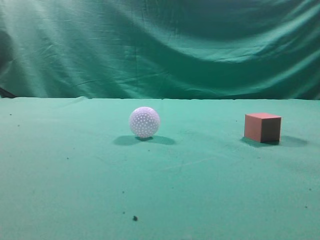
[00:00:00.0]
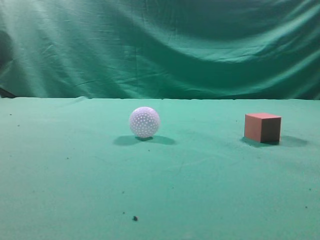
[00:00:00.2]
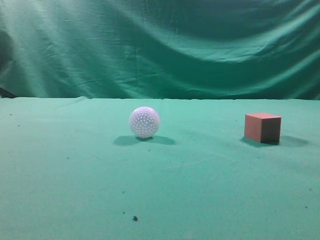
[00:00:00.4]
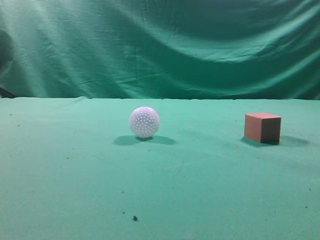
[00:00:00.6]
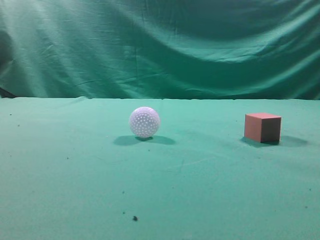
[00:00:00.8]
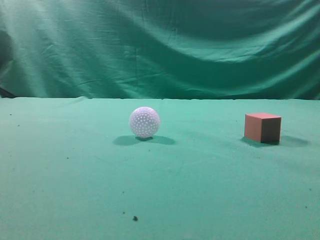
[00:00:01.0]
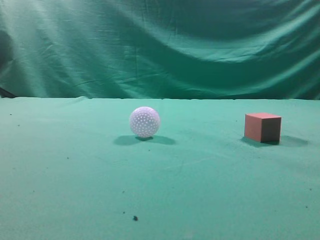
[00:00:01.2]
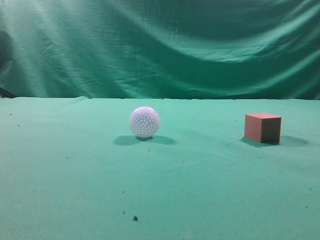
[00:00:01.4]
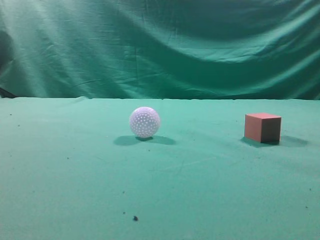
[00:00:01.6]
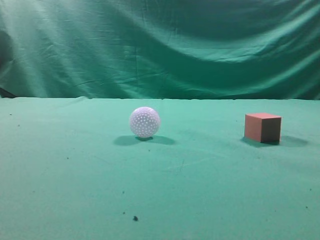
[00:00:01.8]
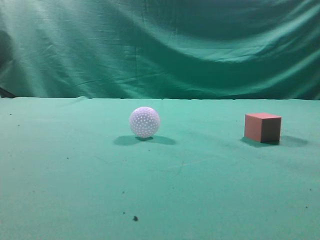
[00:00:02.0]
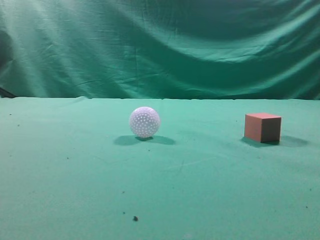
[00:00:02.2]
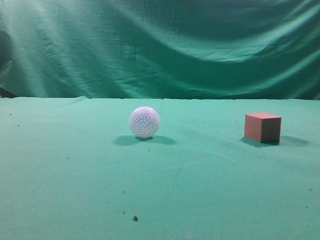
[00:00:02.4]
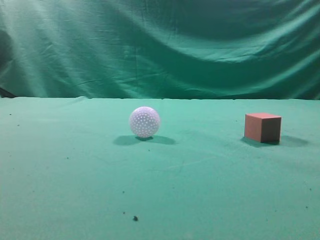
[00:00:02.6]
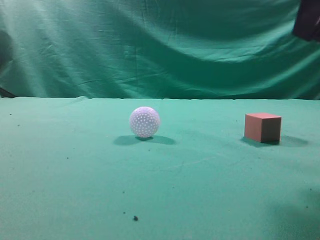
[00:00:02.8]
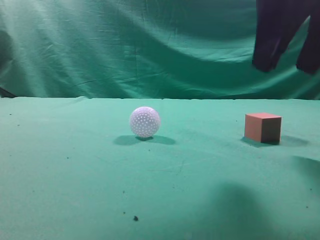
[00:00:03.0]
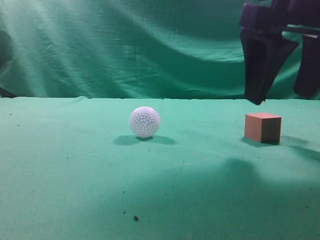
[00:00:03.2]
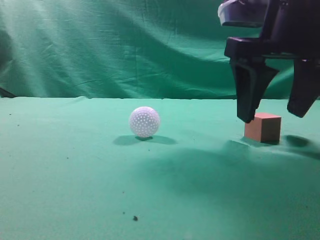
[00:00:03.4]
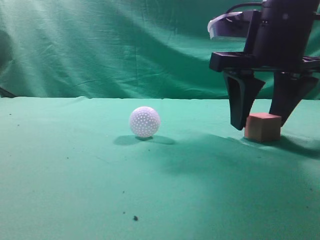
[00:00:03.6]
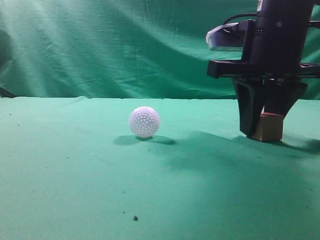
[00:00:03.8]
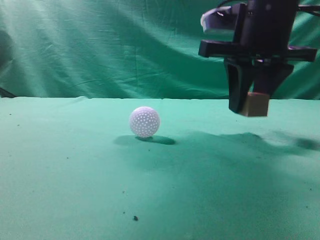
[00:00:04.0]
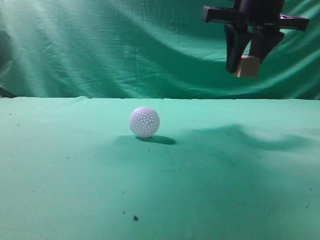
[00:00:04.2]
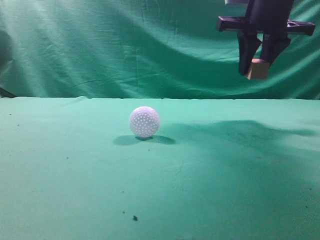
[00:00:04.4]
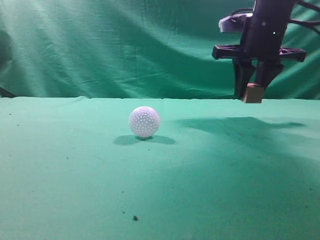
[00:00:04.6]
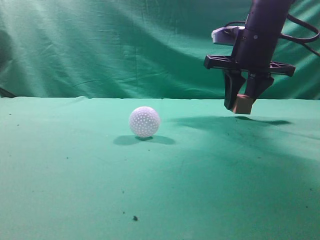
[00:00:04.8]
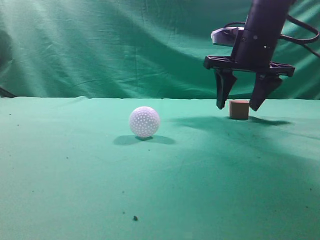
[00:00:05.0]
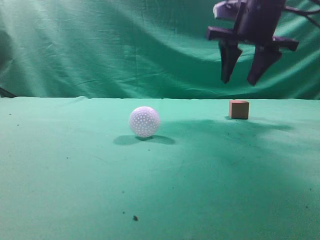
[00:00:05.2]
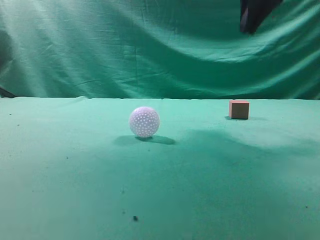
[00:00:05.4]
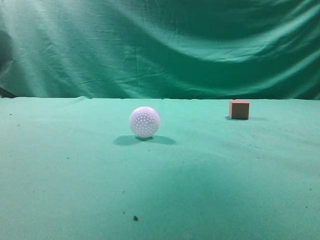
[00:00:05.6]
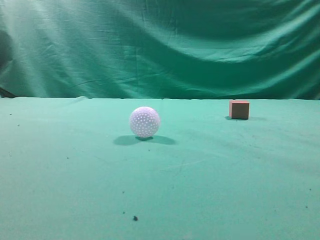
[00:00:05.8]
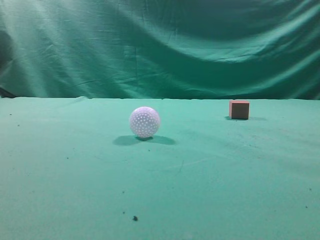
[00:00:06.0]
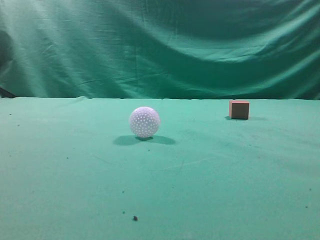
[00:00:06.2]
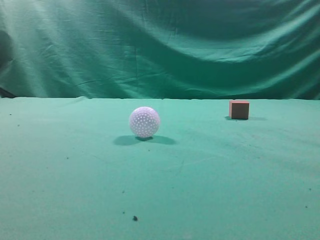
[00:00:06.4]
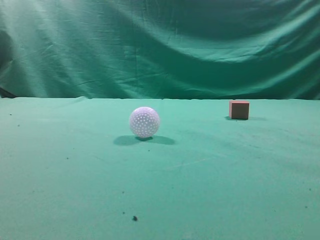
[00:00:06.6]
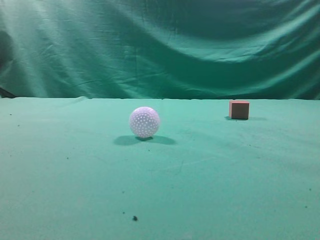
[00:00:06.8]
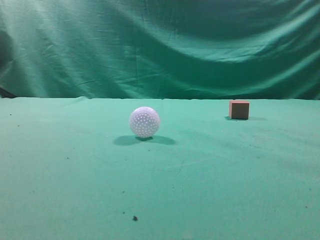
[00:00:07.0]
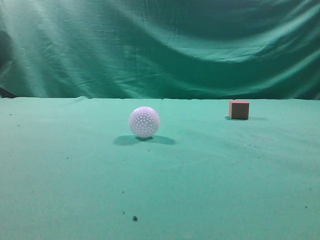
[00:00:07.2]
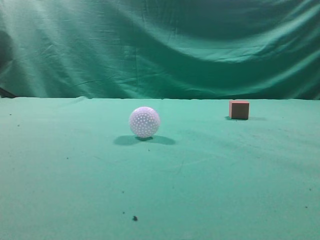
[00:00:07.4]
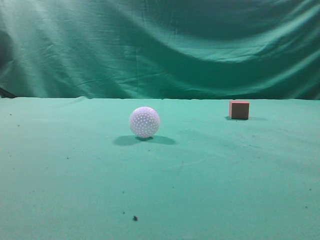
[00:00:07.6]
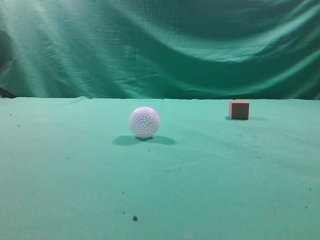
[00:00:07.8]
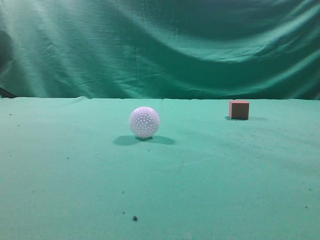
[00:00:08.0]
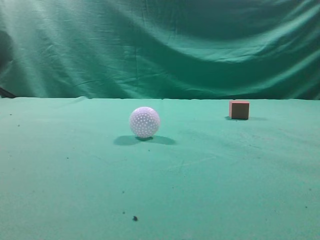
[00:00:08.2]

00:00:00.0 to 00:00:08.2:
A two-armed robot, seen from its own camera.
Task of the whole recording: pick up the cube block and place it in another position on the table.
Step, 00:00:00.0 to 00:00:03.8: Pick up the small cube.
Step, 00:00:04.0 to 00:00:05.0: Place the small cube on the ahead of the table.
00:00:01.6 to 00:00:03.2: The right gripper moves forward, to the left and downward, approximately 25 cm, and opens its fingers.
00:00:03.2 to 00:00:05.0: The right gripper moves forward, about 15 cm, and closes, then opens again.
00:00:05.0 to 00:00:06.6: The right gripper shifts approximately 40 cm backward and upward, and closes up.

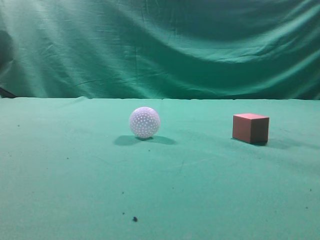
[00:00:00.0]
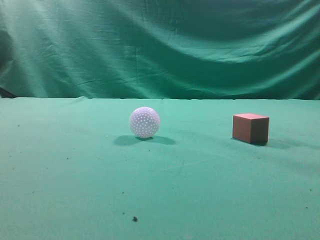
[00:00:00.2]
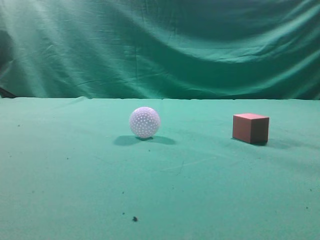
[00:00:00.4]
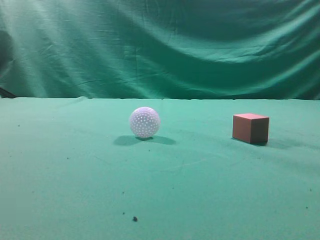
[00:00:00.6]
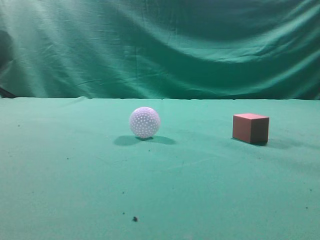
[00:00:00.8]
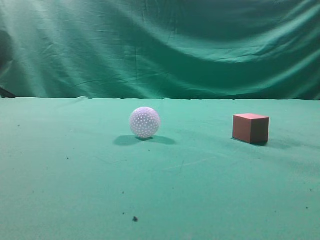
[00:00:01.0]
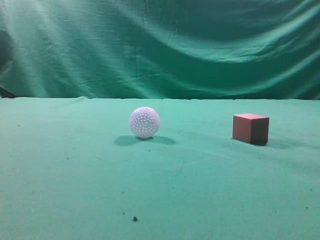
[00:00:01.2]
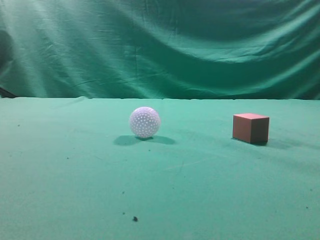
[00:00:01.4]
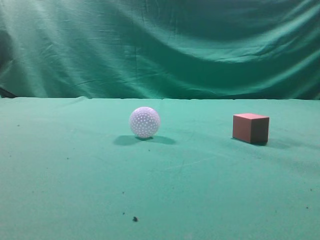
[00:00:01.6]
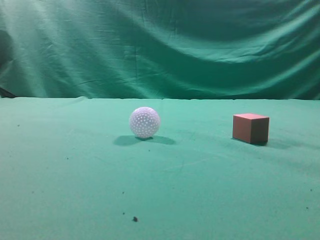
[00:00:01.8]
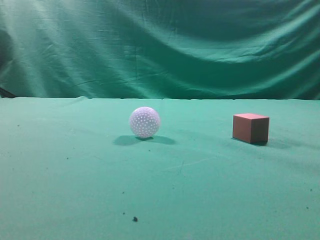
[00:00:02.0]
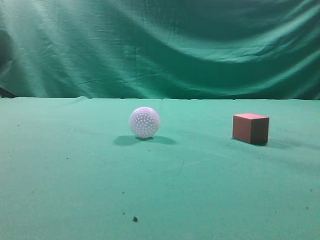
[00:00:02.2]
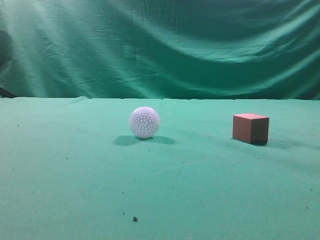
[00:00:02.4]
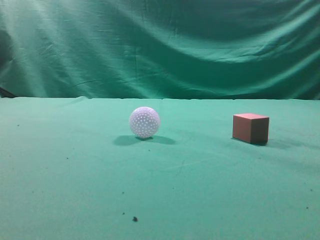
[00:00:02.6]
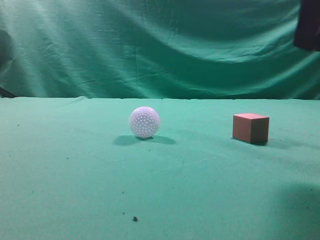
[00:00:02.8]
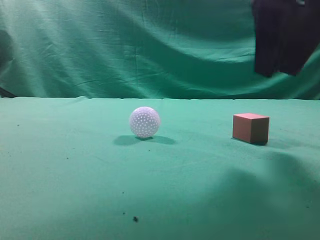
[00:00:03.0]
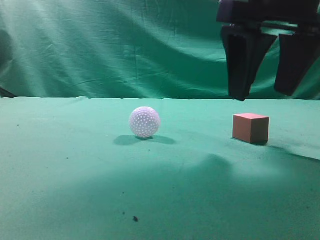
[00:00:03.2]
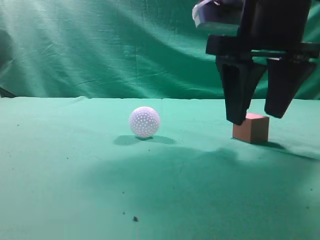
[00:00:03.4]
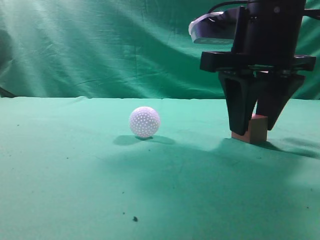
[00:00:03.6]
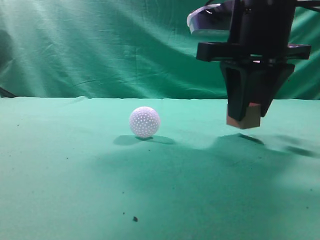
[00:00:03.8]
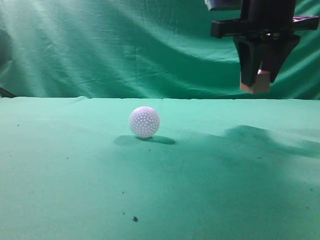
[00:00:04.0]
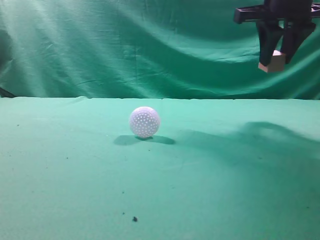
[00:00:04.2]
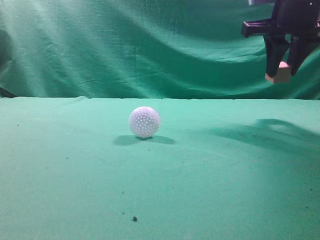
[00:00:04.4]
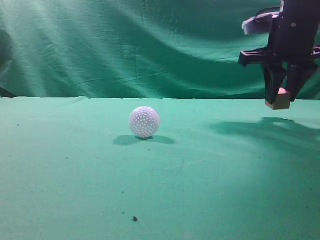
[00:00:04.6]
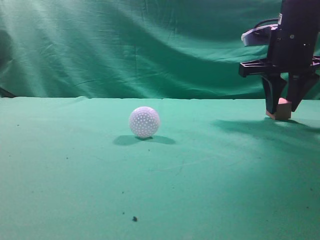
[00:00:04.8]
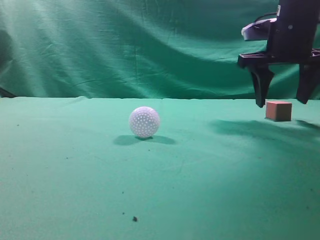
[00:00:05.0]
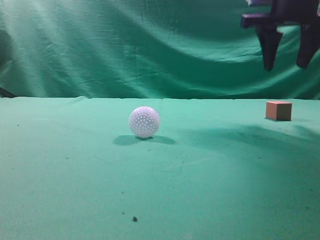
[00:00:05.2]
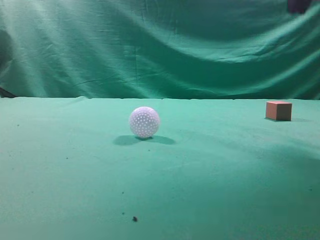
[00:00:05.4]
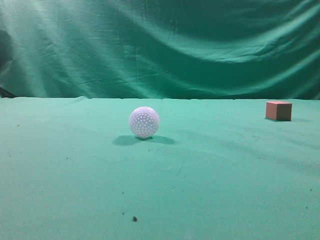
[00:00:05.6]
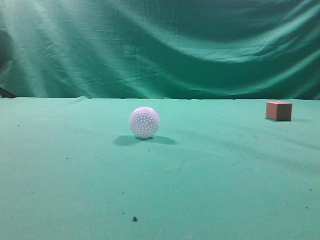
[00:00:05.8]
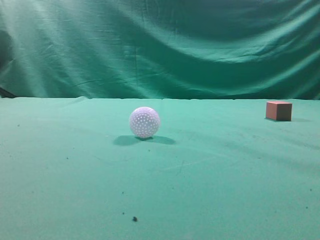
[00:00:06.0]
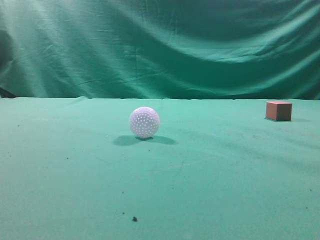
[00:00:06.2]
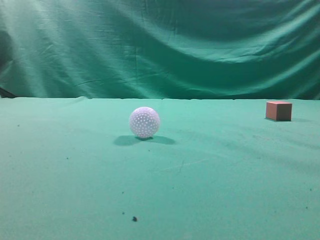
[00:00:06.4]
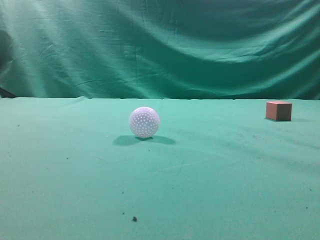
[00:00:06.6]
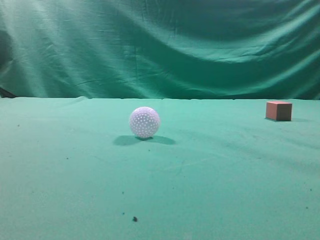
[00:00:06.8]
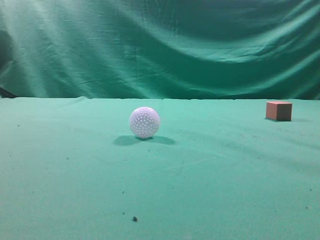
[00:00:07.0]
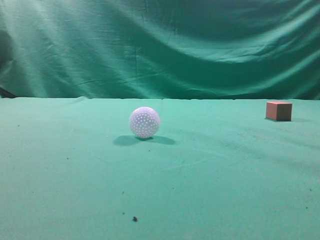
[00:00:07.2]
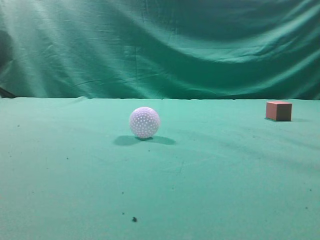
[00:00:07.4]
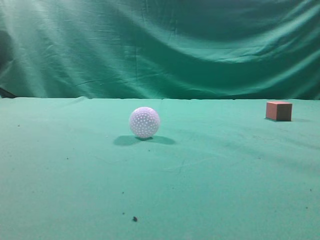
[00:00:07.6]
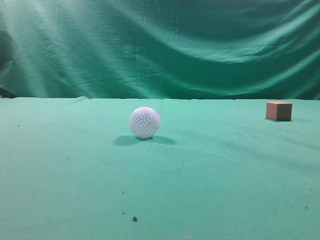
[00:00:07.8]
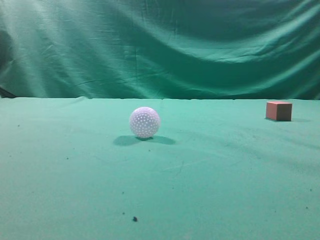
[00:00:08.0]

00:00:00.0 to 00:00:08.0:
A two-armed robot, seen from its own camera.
Task of the whole recording: pick up the cube block and place it in another position on the table.
Step, 00:00:00.0 to 00:00:03.6: Pick up the small cube.
Step, 00:00:03.8 to 00:00:04.8: Place the small cube on the ahead of the table.
00:00:01.6 to 00:00:03.2: The right gripper shifts approximately 25 cm forward and to the left, and opens.
00:00:03.2 to 00:00:04.8: The right gripper is displaced forward and to the right by some 15 cm, and closes up.
00:00:04.8 to 00:00:06.4: The right gripper moves backward and upward, some 35 cm, and closes up.
